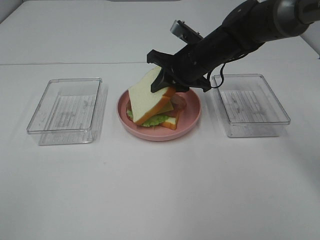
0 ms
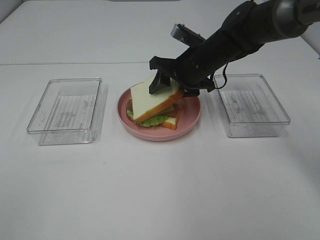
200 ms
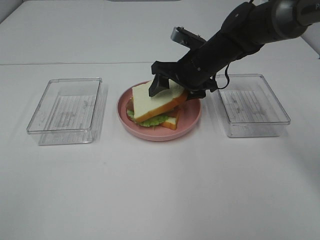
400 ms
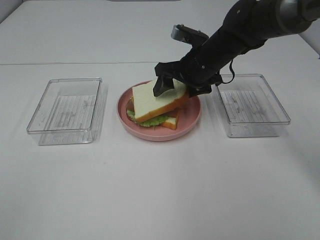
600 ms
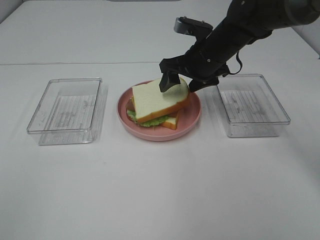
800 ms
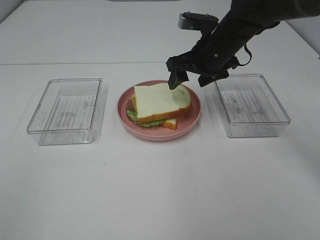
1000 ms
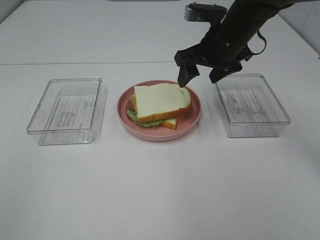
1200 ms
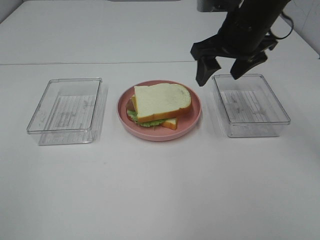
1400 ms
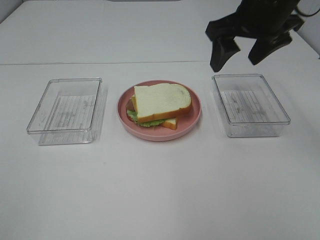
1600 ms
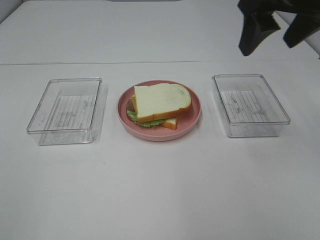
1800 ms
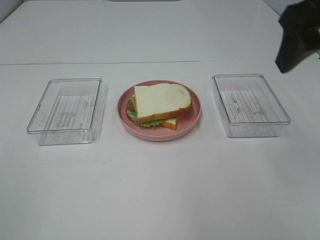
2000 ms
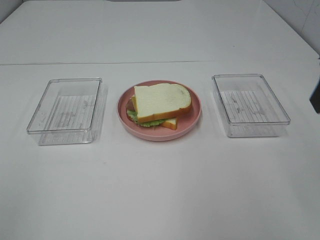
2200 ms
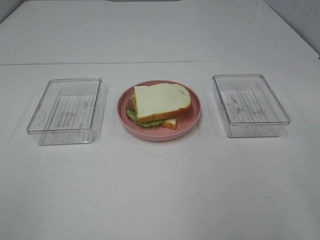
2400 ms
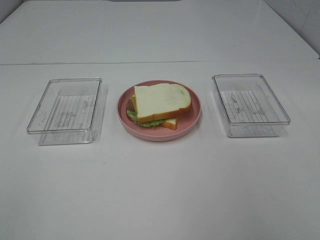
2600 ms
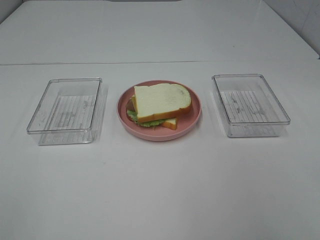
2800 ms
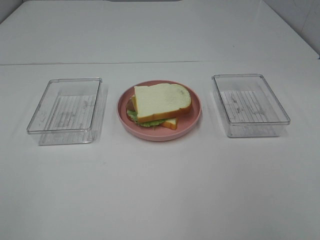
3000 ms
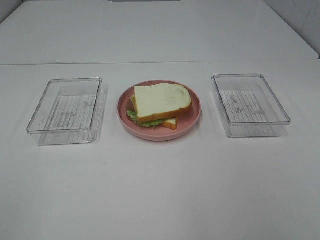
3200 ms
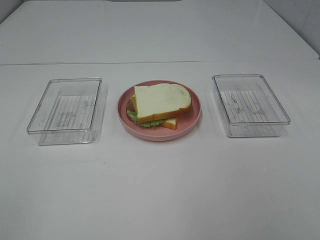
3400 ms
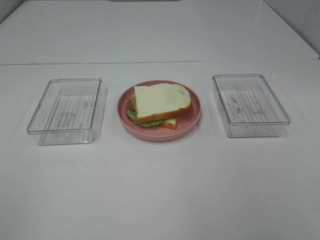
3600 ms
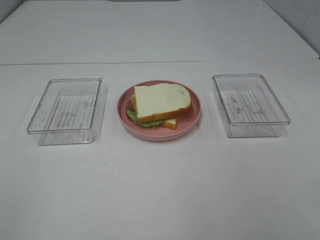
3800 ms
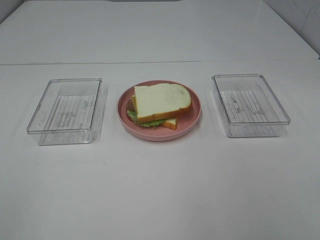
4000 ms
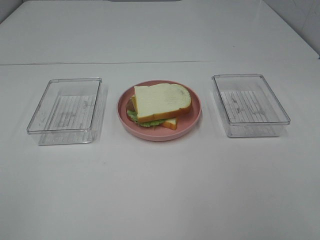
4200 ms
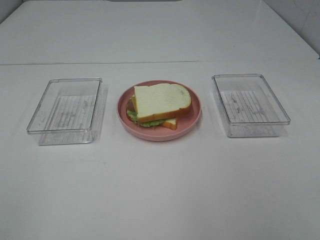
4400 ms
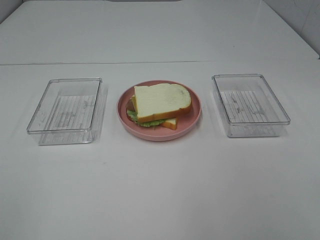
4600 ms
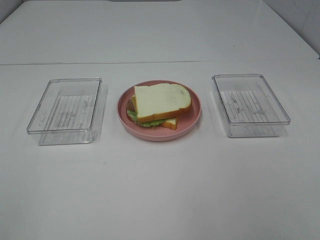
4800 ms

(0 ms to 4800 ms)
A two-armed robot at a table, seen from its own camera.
Task of the whole recording: Make sandwiches.
0 ms - 1600 ms: The right gripper shifts roughly 20 cm upward, backward and to the right, and opens its fingers.
1600 ms - 3200 ms: The right gripper shifts some 35 cm backward.

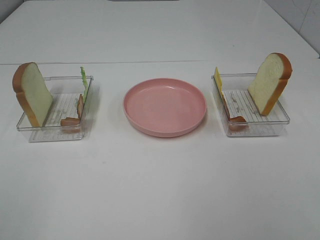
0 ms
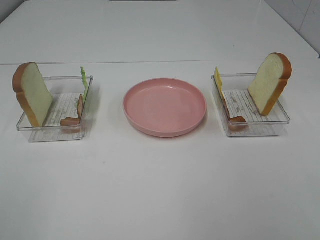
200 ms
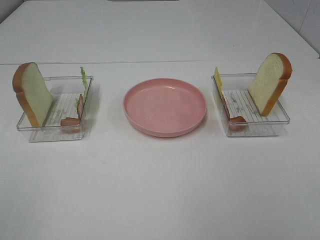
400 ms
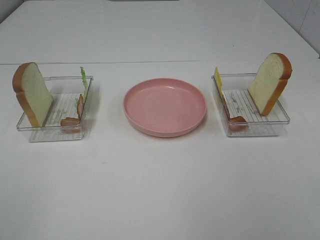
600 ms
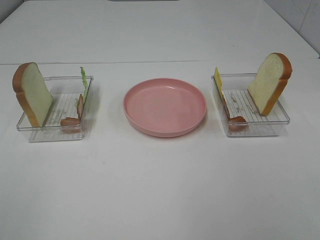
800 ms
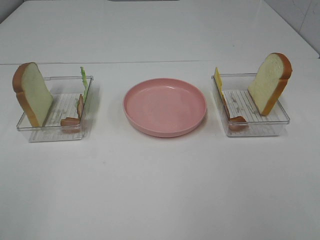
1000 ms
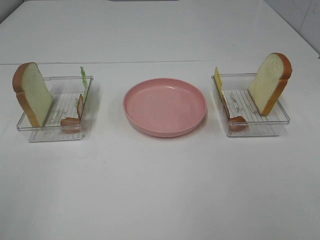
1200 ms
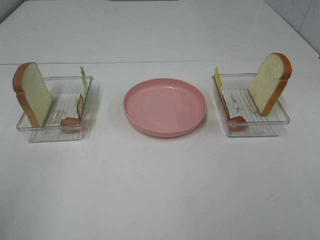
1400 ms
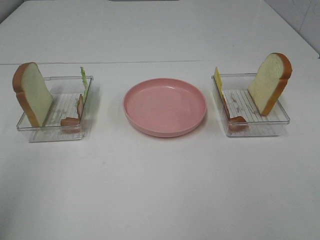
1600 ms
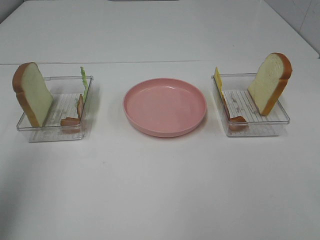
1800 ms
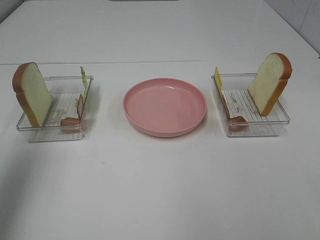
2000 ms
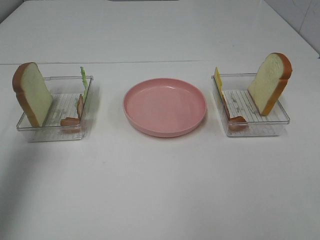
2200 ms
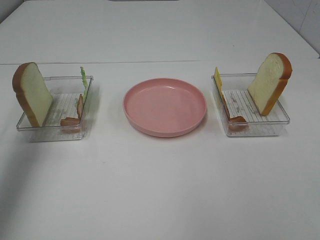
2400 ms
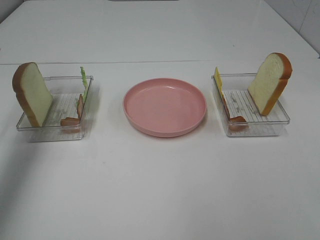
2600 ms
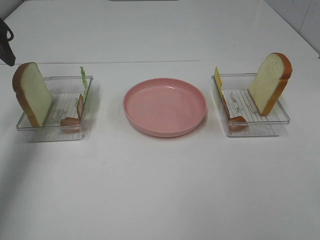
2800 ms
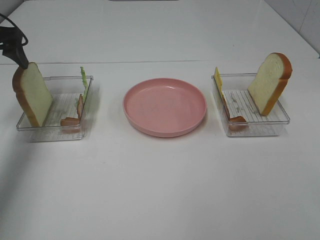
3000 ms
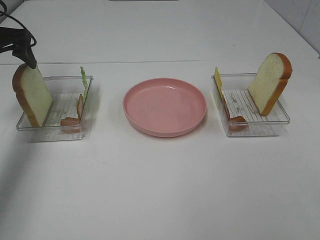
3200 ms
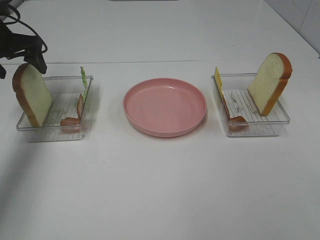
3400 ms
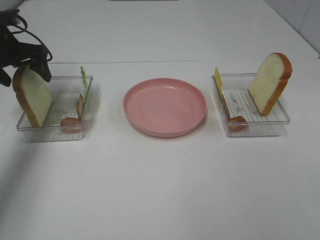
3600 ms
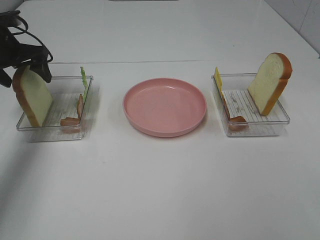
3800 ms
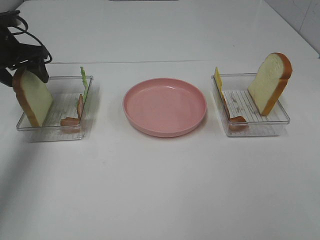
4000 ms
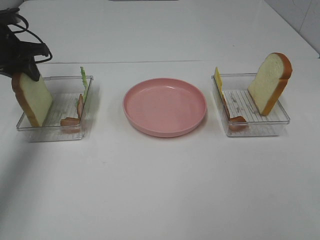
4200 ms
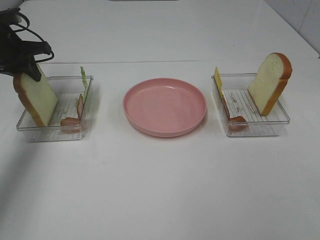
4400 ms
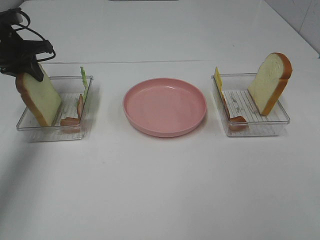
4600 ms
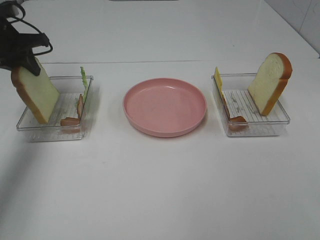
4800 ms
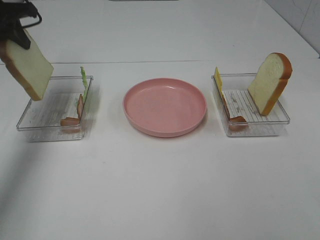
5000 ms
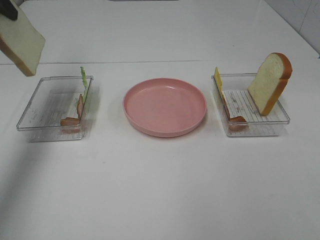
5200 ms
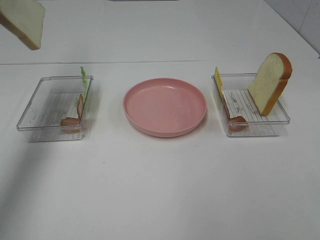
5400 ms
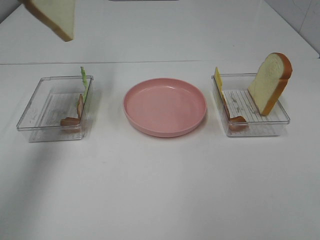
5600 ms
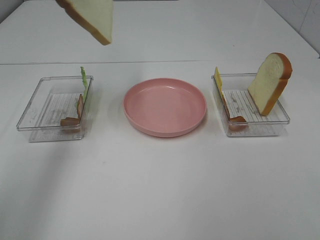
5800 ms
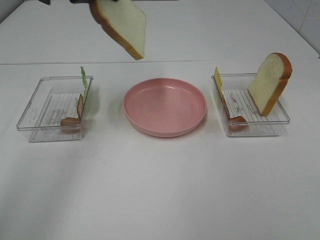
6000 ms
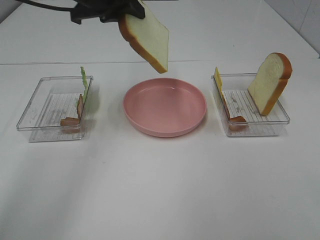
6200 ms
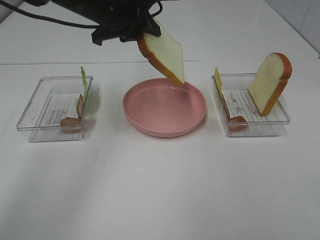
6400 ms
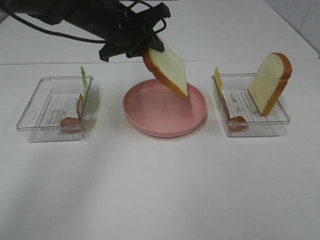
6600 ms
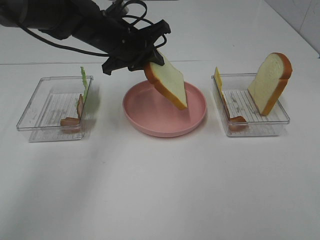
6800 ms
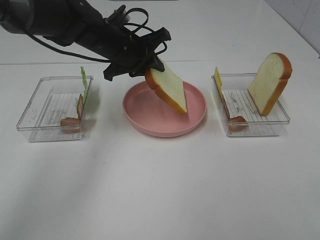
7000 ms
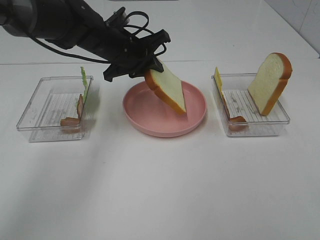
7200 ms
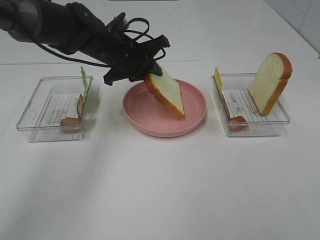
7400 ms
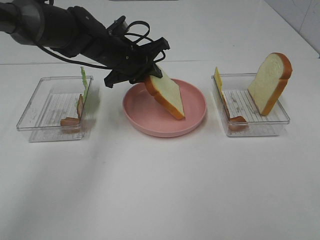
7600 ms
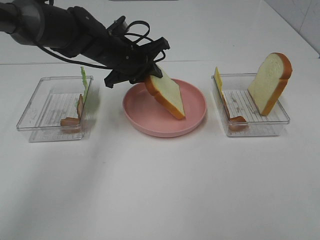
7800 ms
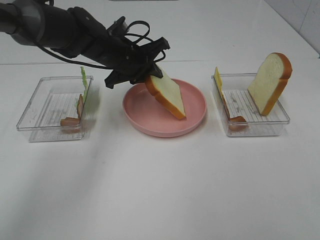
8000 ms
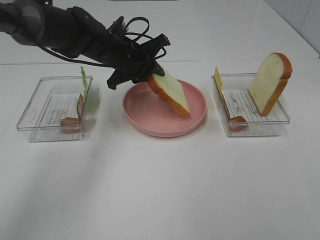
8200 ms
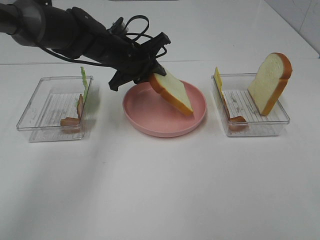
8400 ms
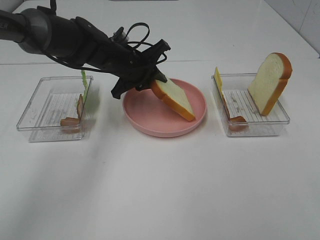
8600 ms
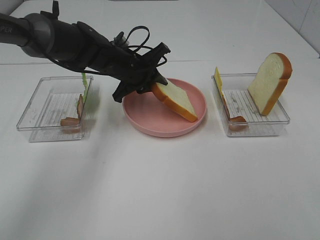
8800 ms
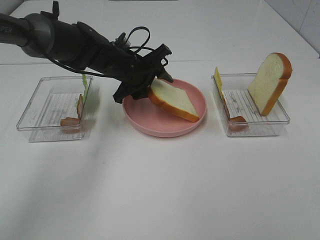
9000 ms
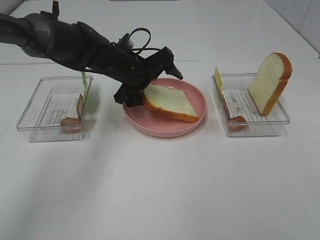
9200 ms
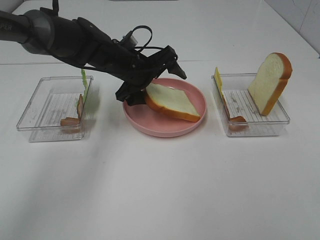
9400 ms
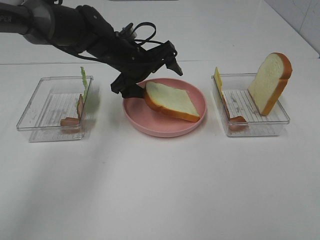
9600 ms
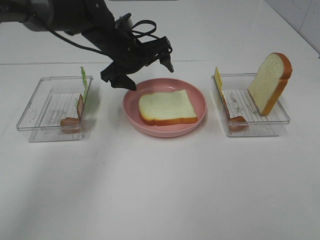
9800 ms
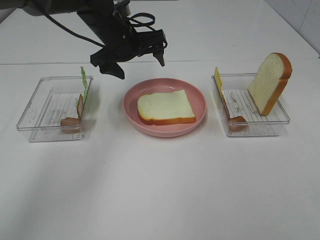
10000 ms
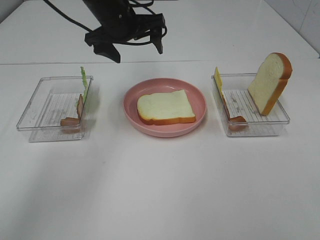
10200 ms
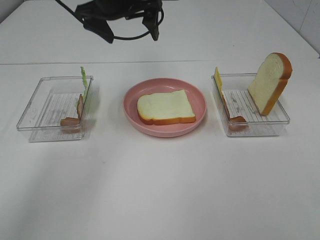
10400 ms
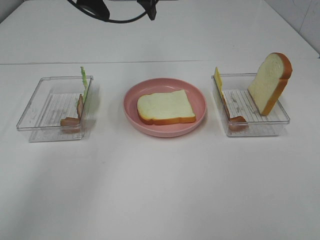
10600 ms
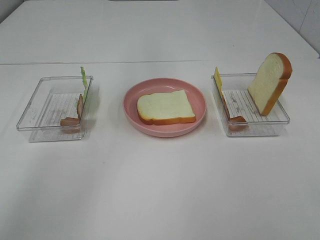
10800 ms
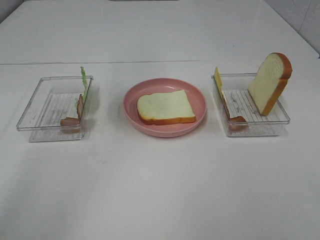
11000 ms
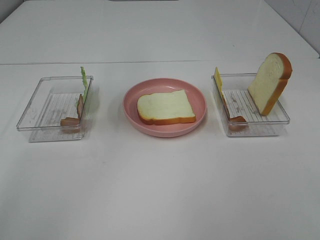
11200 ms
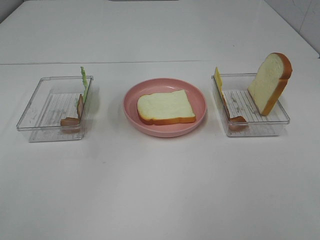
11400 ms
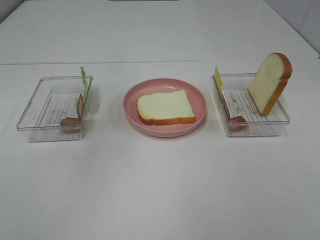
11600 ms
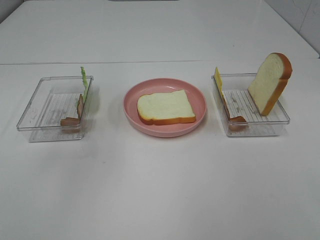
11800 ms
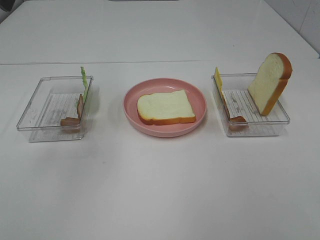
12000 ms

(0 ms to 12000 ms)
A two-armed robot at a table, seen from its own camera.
Task of the whole recording: Make sandwiches.
Step, 0 ms - 4200 ms: Left hand:grab the bread slice.
Step, 4400 ms - 9800 ms: Left hand:place the bread slice on the plate.
1600 ms - 3000 ms: The left gripper goes approximately 35 cm forward and downward.
3000 ms - 4400 ms: The left gripper shifts by approximately 5 cm, and closes.
4400 ms - 6000 ms: The left gripper heads to the right and upward, covering some 20 cm.
6000 ms - 7600 ms: The left gripper goes approximately 20 cm downward and to the right.
7600 ms - 9000 ms: The left gripper opens.
9000 ms - 10400 ms: The left gripper moves upward, approximately 15 cm, and opens up.
10400 ms - 12000 ms: The left gripper moves backward, to the left and upward, some 25 cm.

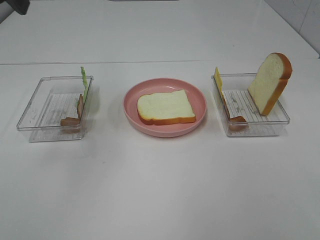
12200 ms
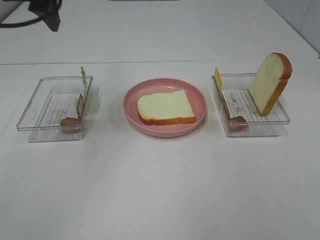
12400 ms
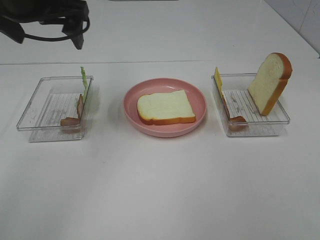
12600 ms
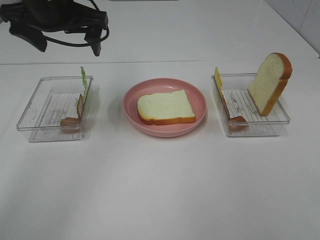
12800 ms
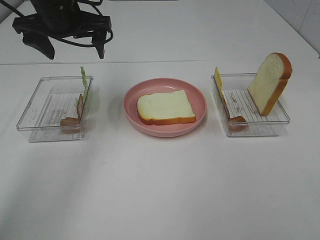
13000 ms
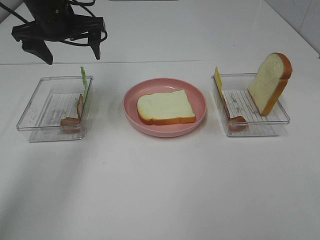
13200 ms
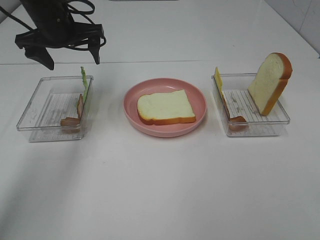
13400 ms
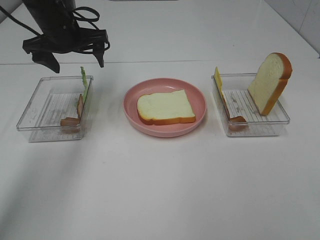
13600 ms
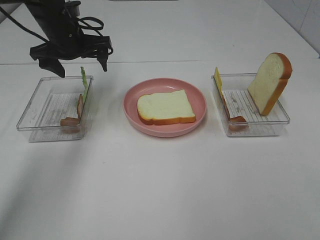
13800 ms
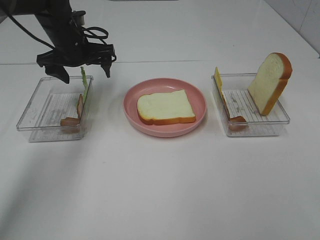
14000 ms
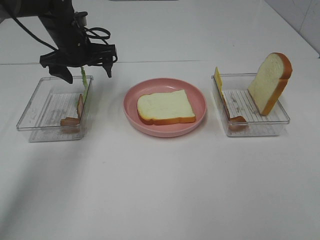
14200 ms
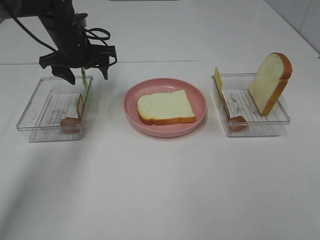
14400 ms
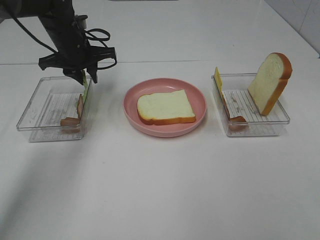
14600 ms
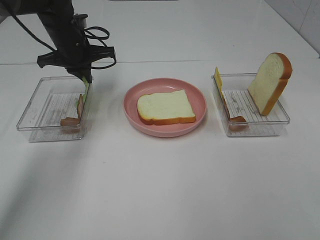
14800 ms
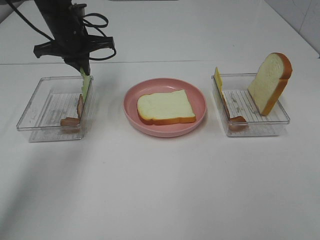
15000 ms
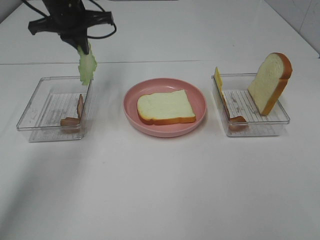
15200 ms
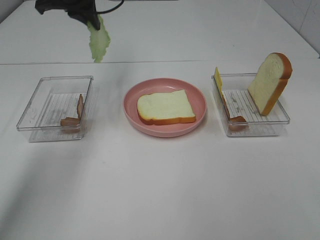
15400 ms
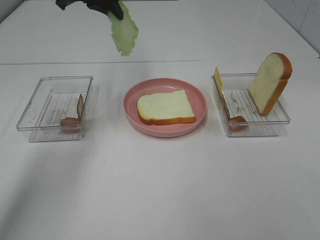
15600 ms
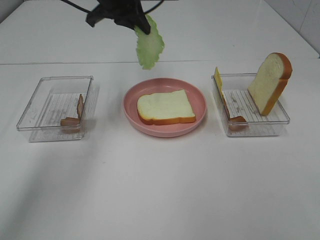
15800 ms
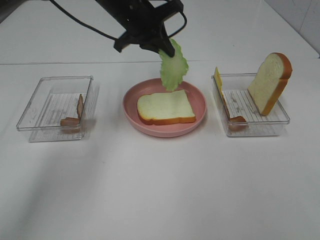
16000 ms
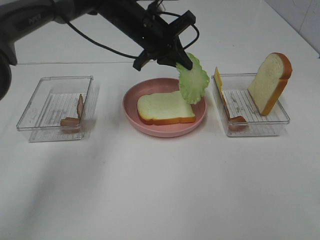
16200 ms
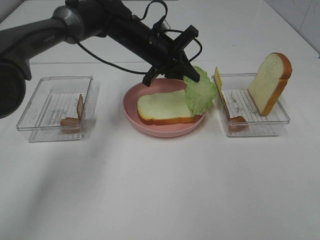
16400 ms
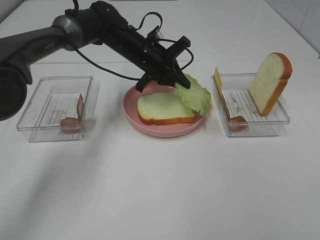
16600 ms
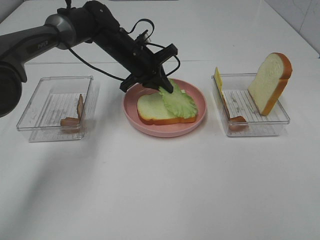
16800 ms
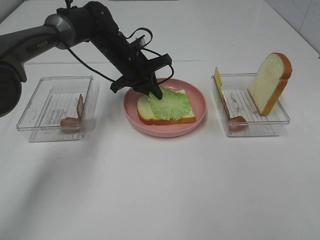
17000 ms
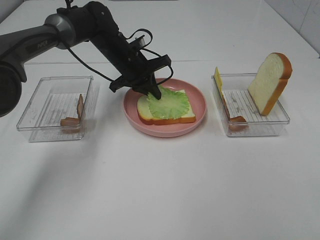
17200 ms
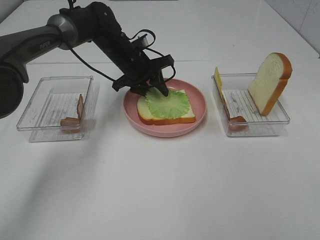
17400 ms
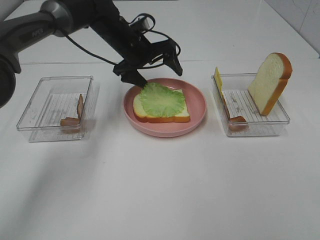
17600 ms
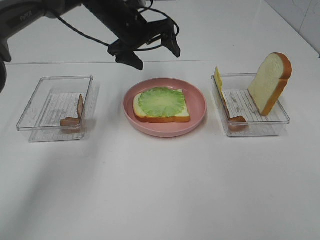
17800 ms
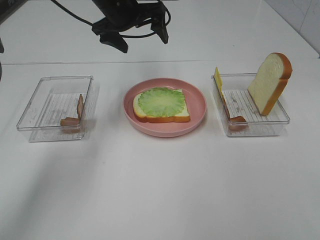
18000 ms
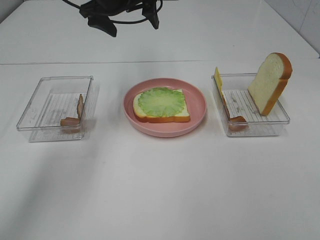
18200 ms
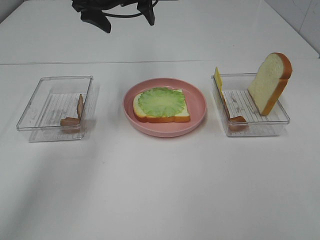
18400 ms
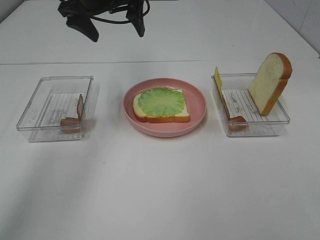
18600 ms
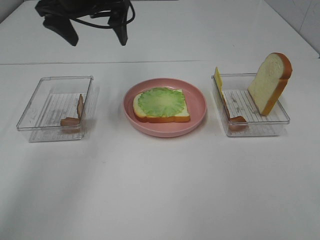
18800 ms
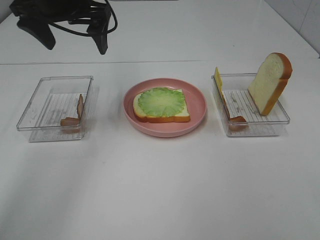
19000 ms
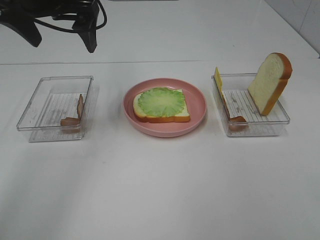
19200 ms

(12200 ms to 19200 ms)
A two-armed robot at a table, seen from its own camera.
Task of the whole recording: Make sandwiches.
Step, 12200 ms - 14800 ms: Left hand:grab the lettuce slice.
Step, 15000 ms - 17600 ms: Left hand:place the lettuce slice on the bread slice.
12200 ms - 13600 ms: The left gripper is displaced downward and forward by roughly 25 cm.
13600 ms - 15000 ms: The left gripper closes its fingers.
15000 ms - 16400 ms: The left gripper shifts approximately 15 cm to the right, and goes upward and returns, roughly 10 cm each way.
16400 ms - 17800 ms: The left gripper moves roughly 5 cm, and opens.
17800 ms - 19200 ms: The left gripper travels backward, upward and to the left by roughly 20 cm.
